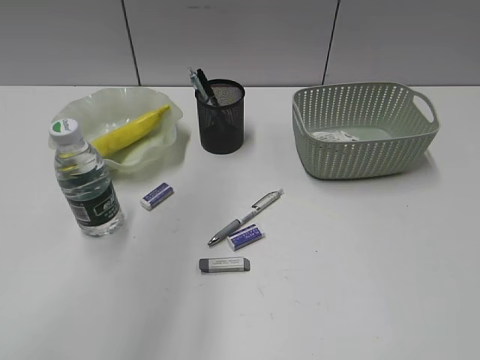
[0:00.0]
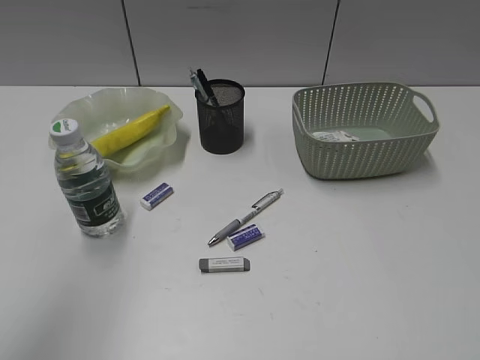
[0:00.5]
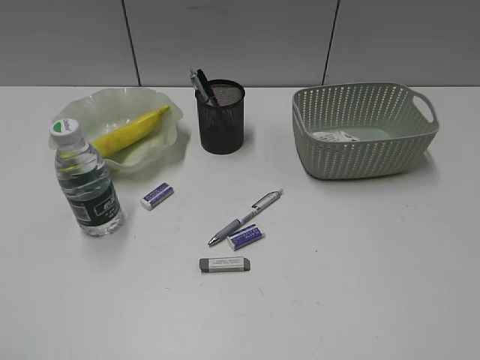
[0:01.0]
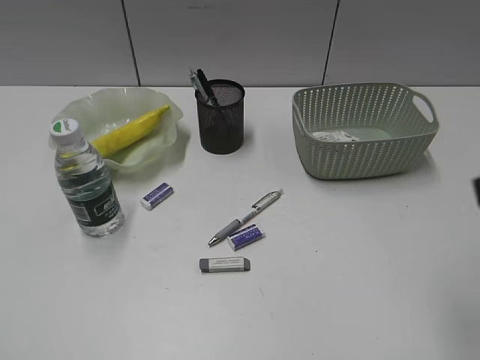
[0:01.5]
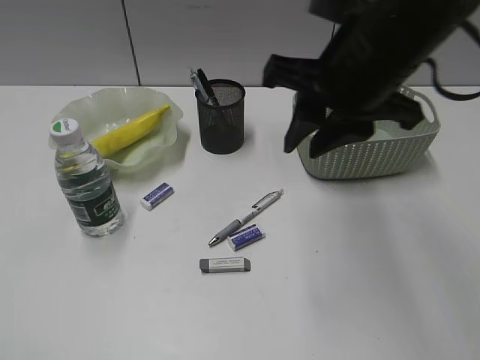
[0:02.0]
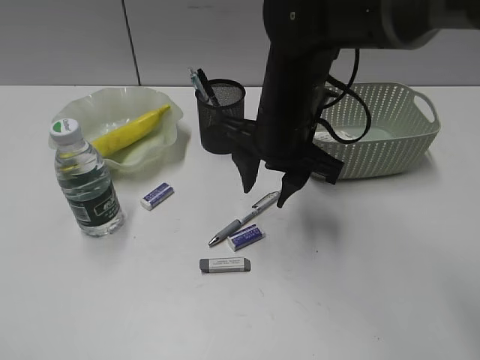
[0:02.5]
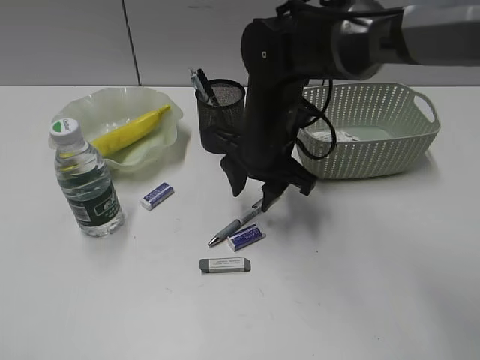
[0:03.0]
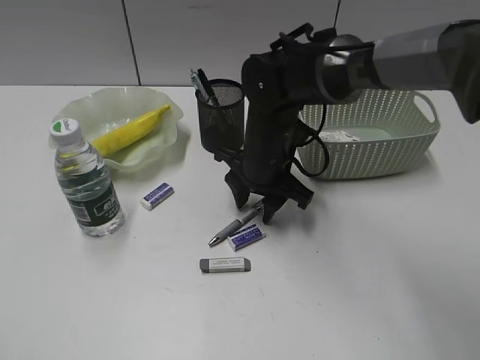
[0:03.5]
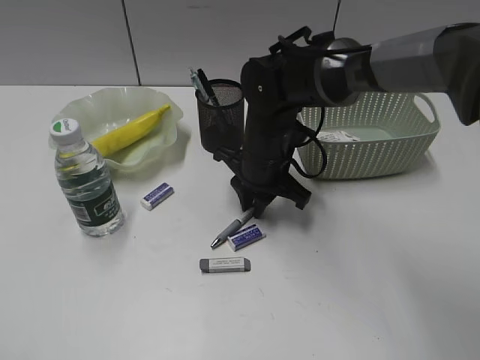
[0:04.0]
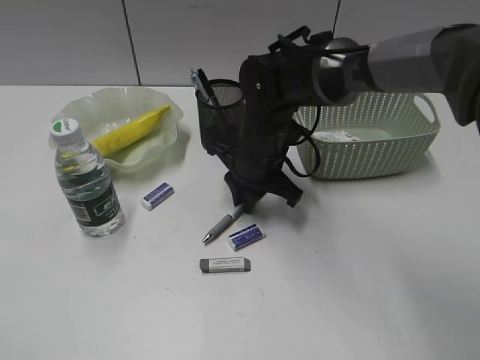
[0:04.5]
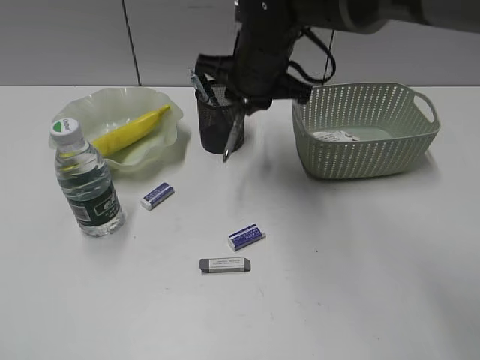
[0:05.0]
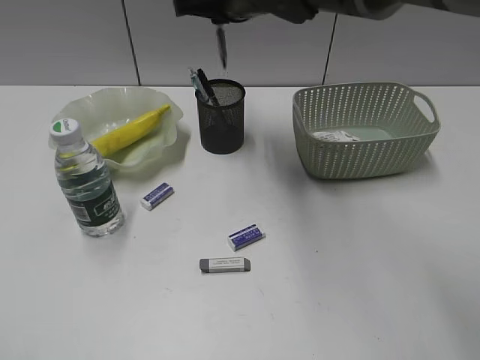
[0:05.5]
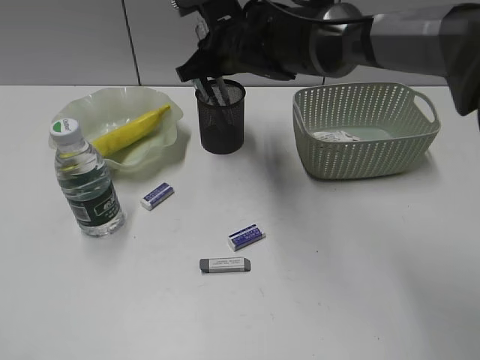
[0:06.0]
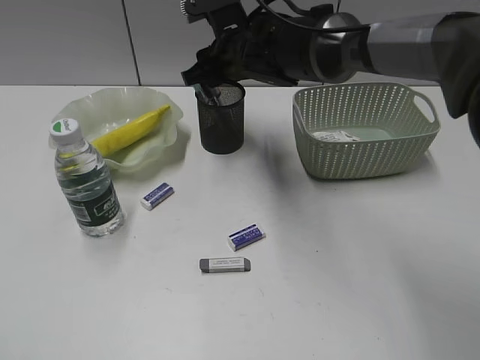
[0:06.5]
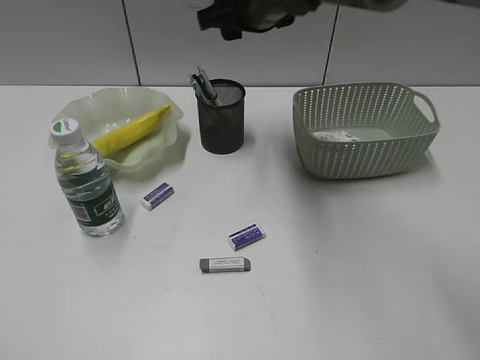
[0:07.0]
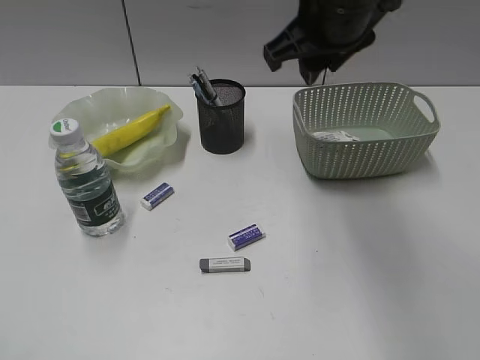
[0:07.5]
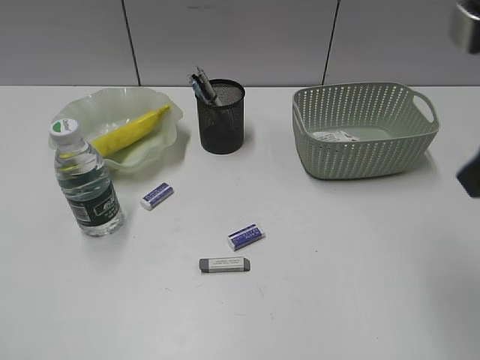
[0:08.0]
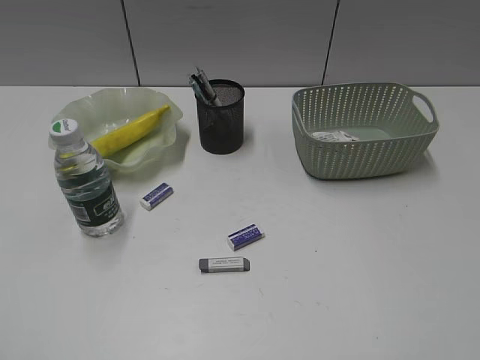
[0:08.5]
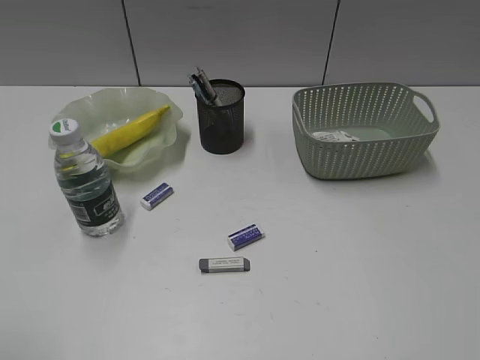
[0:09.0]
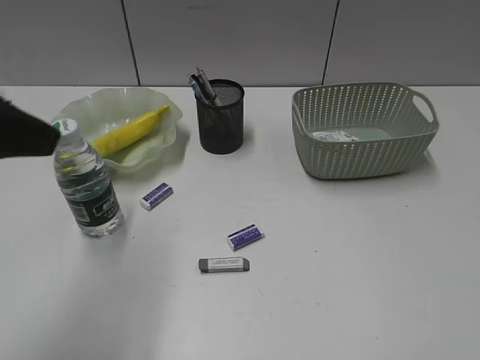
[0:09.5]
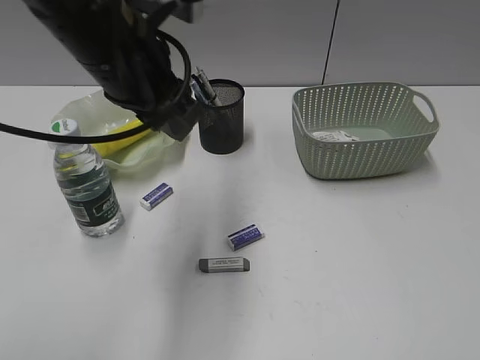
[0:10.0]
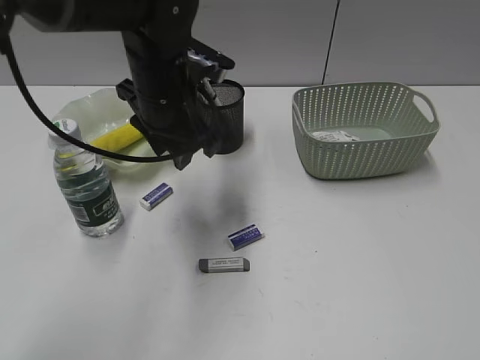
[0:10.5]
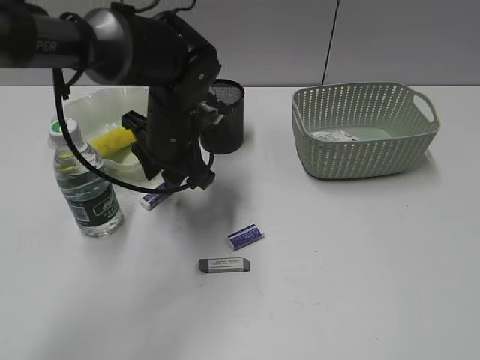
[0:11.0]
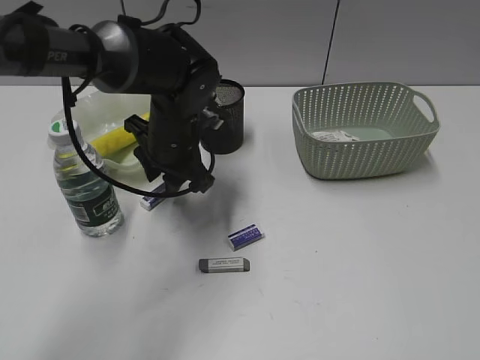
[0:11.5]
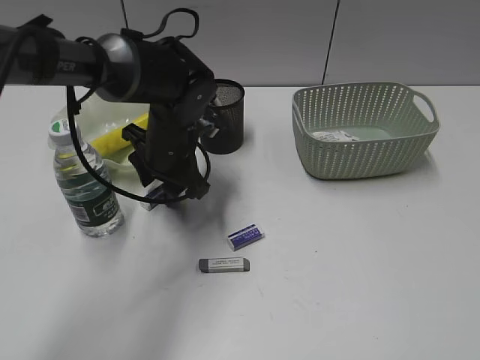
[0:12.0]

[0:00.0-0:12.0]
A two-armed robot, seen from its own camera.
Step, 0.0 to 4.0 s: Grasp the gray pen with right gripper.
Step, 4.5 to 6.5 s: Place the gray pen in pen holder with right gripper.
0.0 to 2.0 s: The left gripper travels backward, to the left and downward by approximately 35 cm. The right gripper heads forward and to the left, covering about 35 cm.
2.0 to 4.0 s: The right gripper goes approximately 20 cm downward and forward, and opens, then closes again.
4.0 to 6.0 s: The right gripper moves upward and forward, about 10 cm.
6.0 to 8.0 s: The right gripper moves backward, to the right and upward, about 35 cm, and opens its fingers.
8.0 to 10.0 s: The right gripper is displaced backward and to the right by about 20 cm, while the left gripper shifts approximately 40 cm forward and to the right.
10.0 to 12.0 s: The left gripper heads downward and forward, covering some 20 cm.

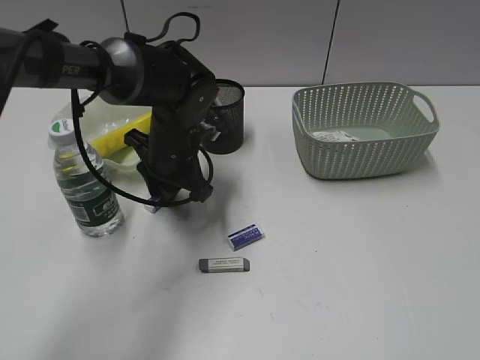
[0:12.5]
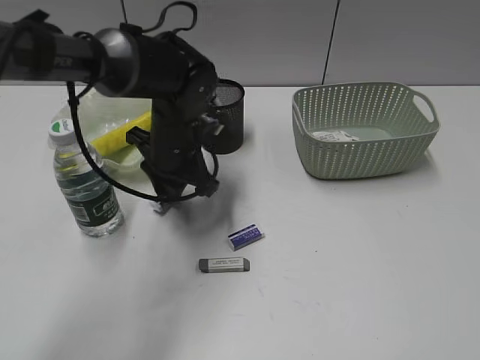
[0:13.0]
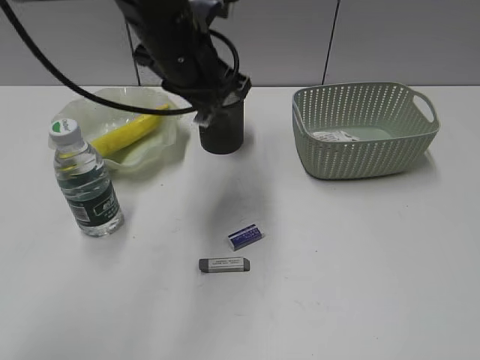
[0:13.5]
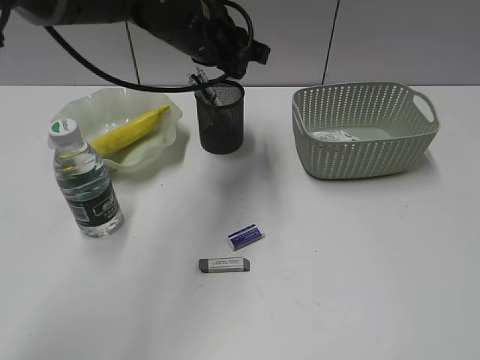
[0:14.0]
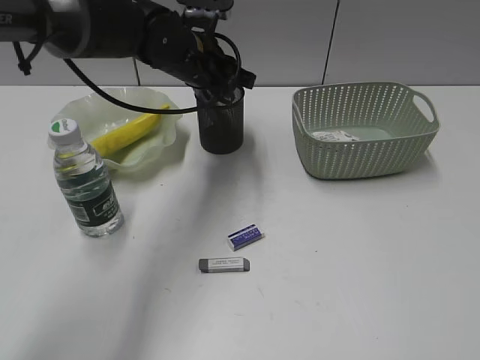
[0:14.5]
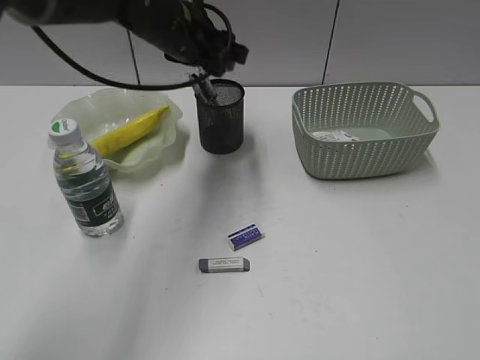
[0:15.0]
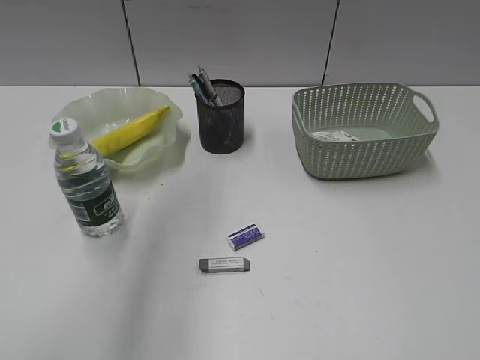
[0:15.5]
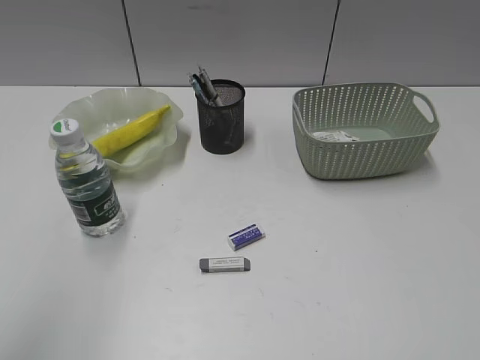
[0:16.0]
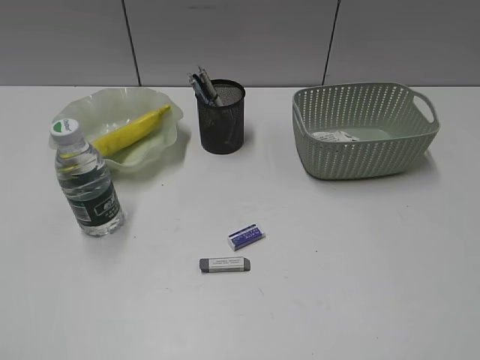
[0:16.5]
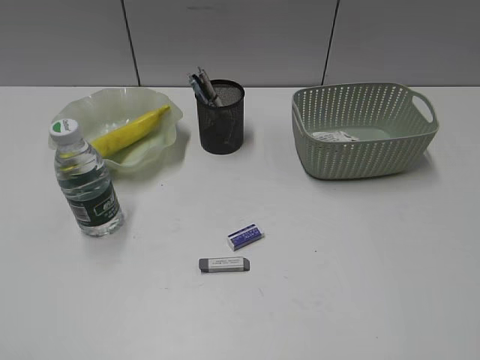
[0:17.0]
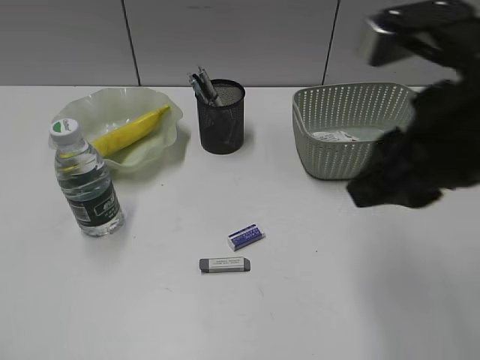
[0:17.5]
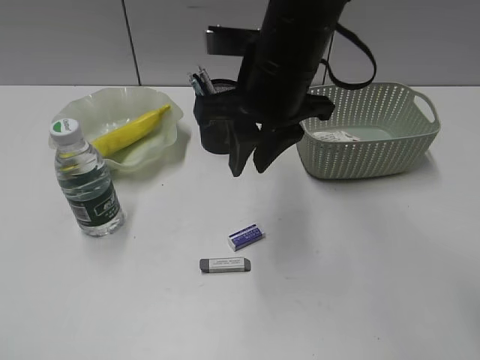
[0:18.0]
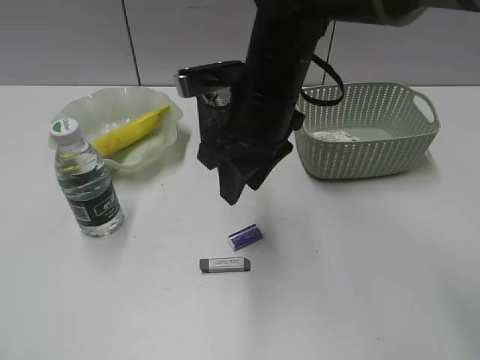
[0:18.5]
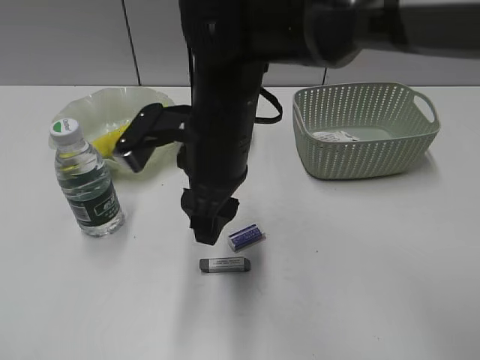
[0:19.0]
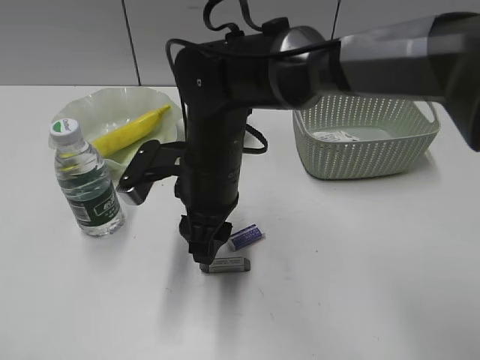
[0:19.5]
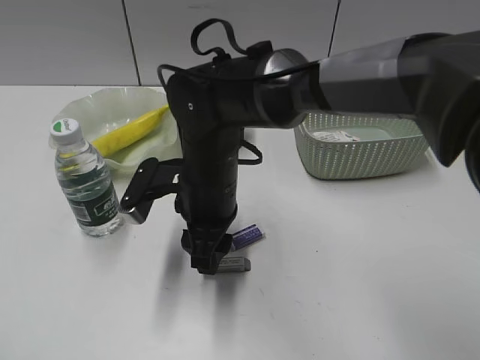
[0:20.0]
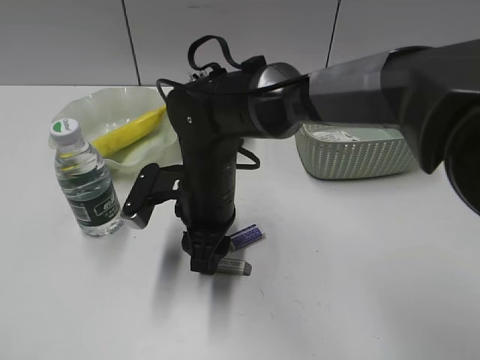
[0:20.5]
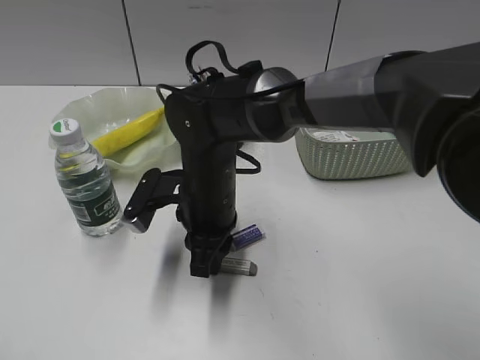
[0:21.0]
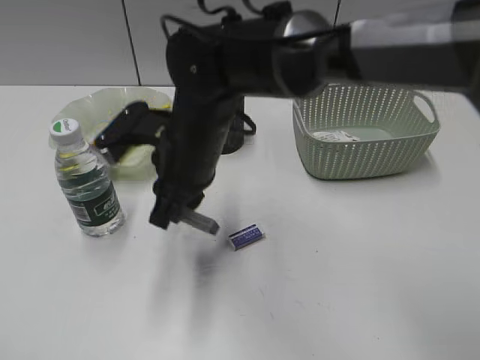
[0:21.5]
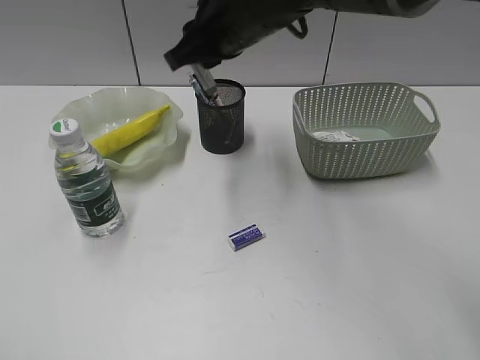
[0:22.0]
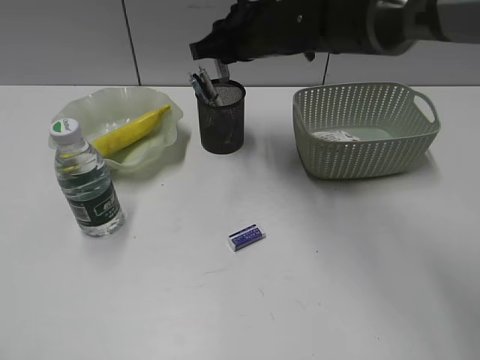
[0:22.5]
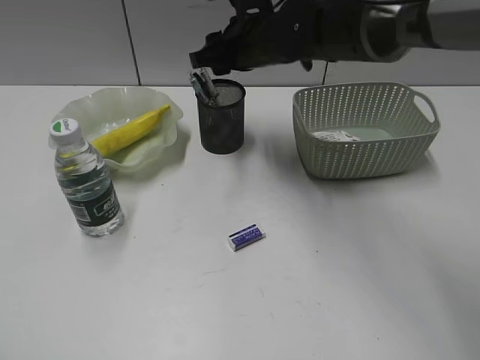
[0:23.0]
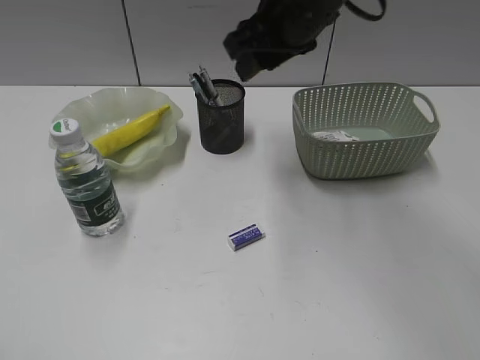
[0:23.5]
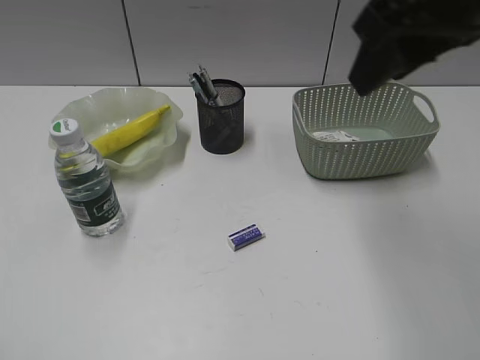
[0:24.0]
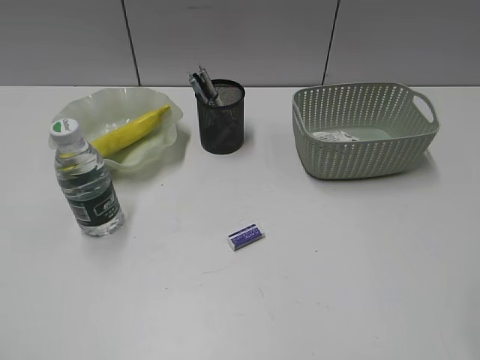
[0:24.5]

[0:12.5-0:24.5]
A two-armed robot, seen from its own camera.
Step, 13.0 to 14.5 s: Place the eraser in pen holder with left gripper.
Step, 15.0 to 20.5 s: Grasp the eraser with right gripper.
Step, 21.0 to 23.0 s: Place the eraser in pen holder with right gripper.
12.5 to 14.5 s: The left gripper is displaced upward and forward by about 10 cm.
14.5 to 16.5 s: The left gripper shifts roughly 50 cm backward and to the left.
16.5 to 18.5 s: The right gripper shifts approximately 40 cm forward and to the left.
18.5 to 20.5 s: The right gripper travels downward and to the left by some 10 cm.
20.5 to 22.5 s: The right gripper heads forward, upward and to the right, covering some 20 cm, and closes.
22.5 to 24.5 s: The right gripper travels backward and to the right by about 40 cm, and opens up.

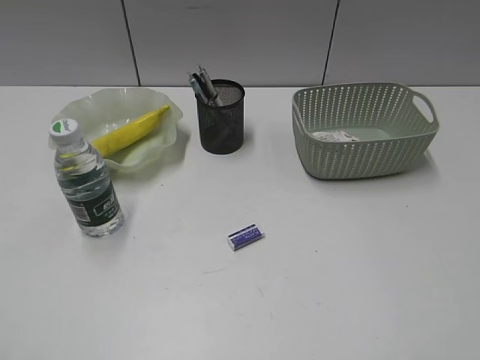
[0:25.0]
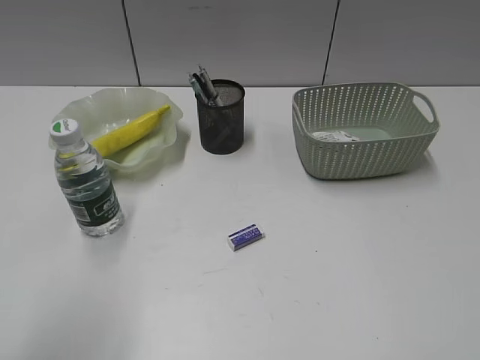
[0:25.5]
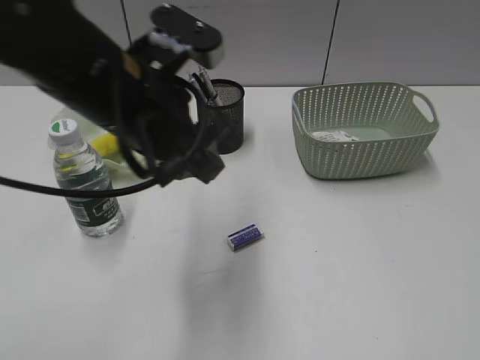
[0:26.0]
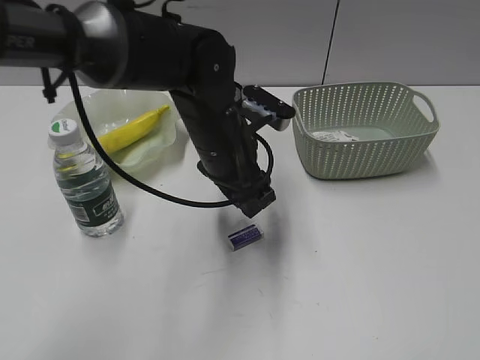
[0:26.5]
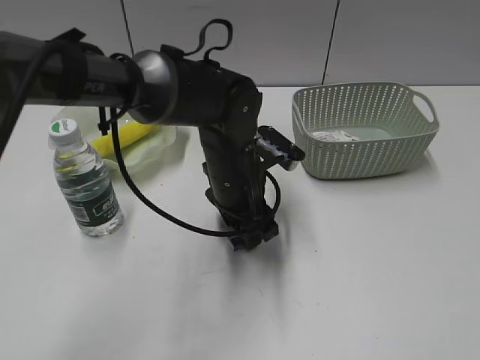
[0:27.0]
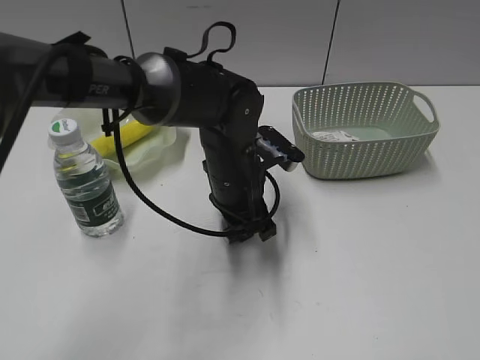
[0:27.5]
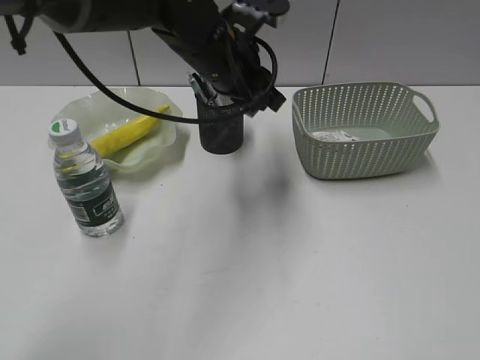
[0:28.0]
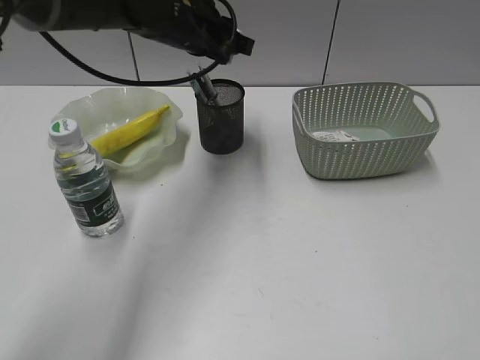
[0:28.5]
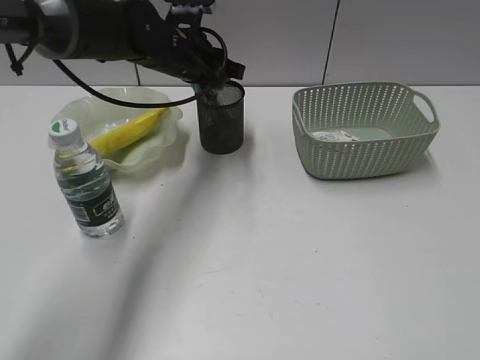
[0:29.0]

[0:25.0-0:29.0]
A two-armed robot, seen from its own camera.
Step, 25.0 to 27.0 s: Grasp the eraser with left gripper.
25.0 to 27.0 s: The left gripper is displaced to the right, forward and downward by some 50 cm.
27.0 to 29.0 s: The left gripper travels forward, upward and to the left by about 15 cm, and closes up.
